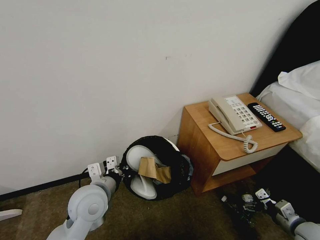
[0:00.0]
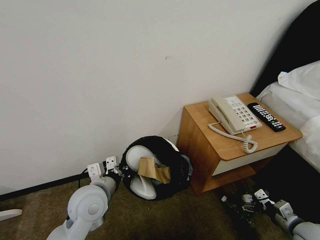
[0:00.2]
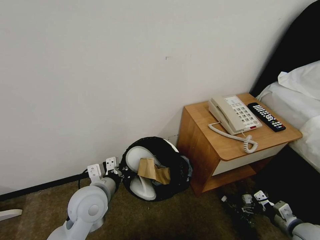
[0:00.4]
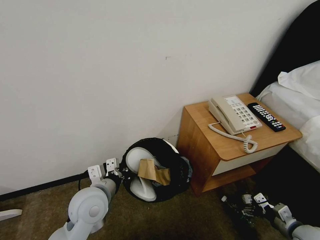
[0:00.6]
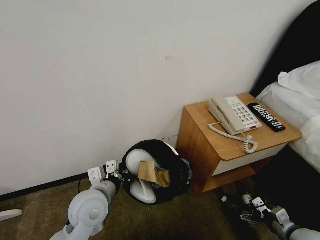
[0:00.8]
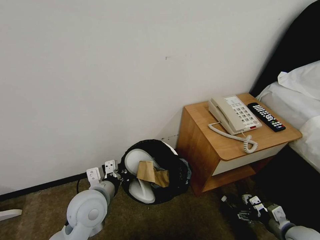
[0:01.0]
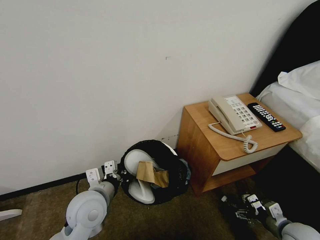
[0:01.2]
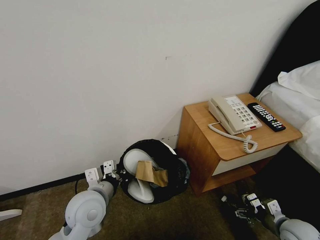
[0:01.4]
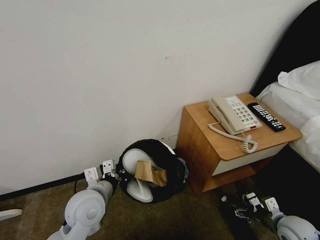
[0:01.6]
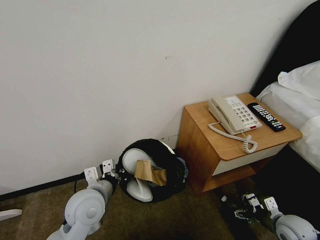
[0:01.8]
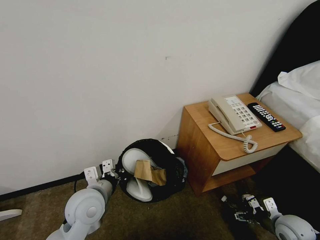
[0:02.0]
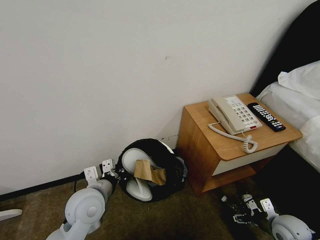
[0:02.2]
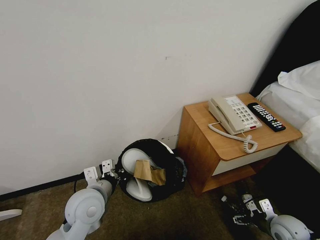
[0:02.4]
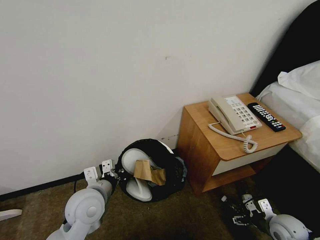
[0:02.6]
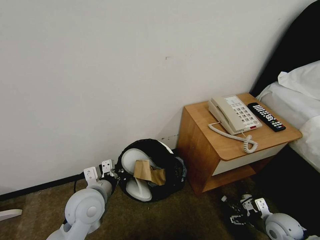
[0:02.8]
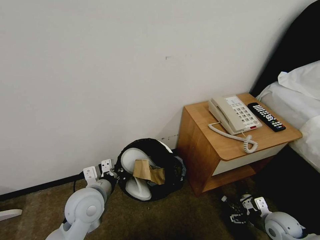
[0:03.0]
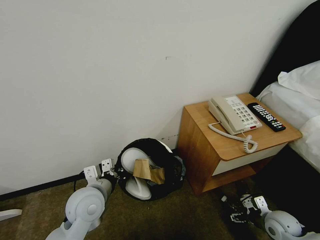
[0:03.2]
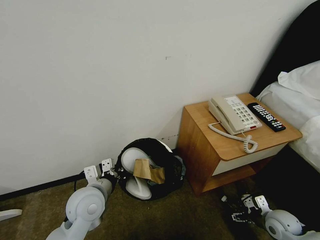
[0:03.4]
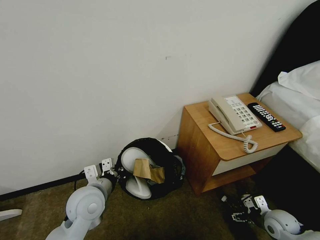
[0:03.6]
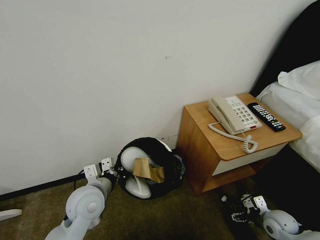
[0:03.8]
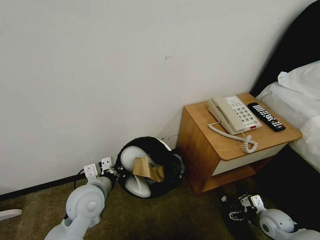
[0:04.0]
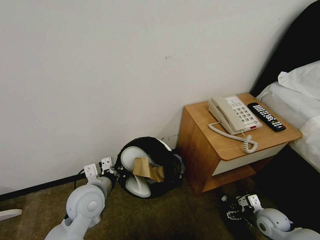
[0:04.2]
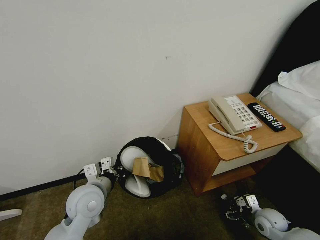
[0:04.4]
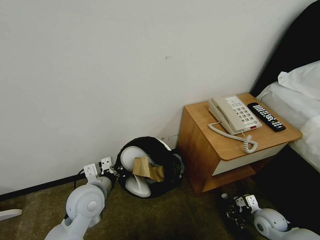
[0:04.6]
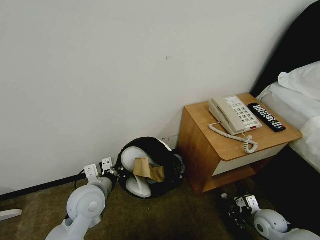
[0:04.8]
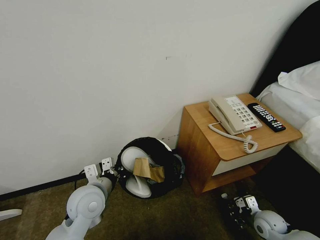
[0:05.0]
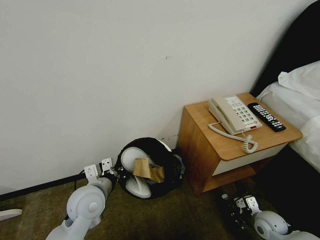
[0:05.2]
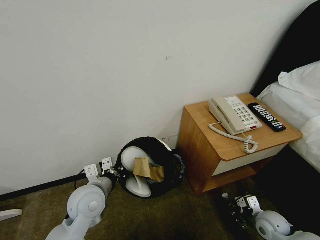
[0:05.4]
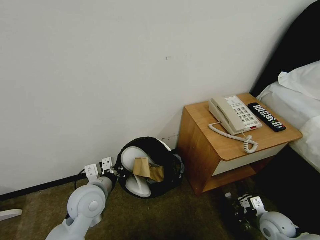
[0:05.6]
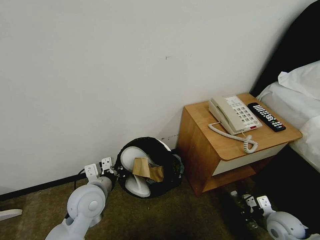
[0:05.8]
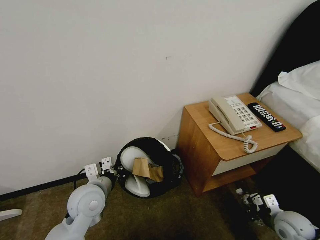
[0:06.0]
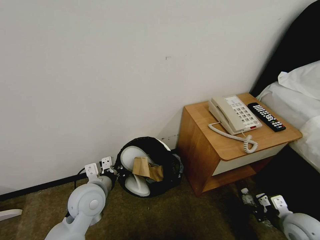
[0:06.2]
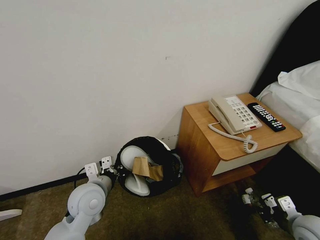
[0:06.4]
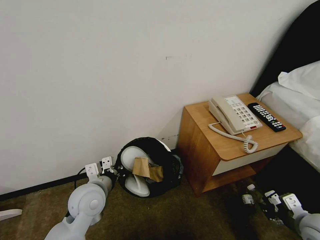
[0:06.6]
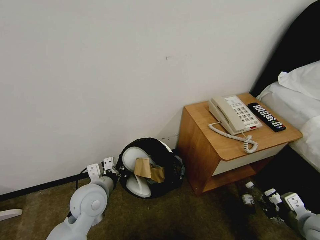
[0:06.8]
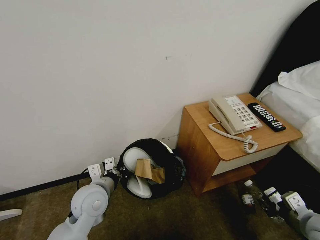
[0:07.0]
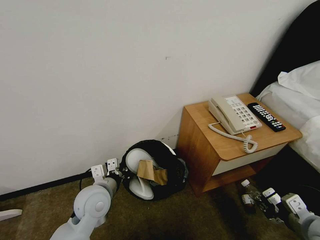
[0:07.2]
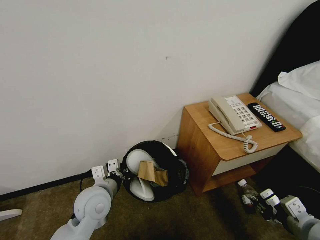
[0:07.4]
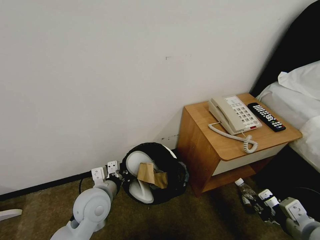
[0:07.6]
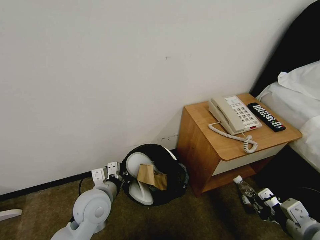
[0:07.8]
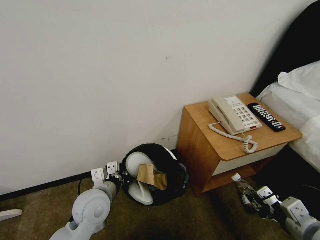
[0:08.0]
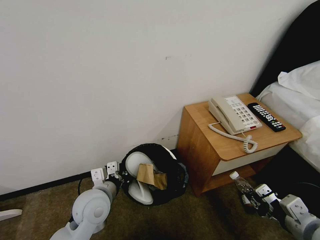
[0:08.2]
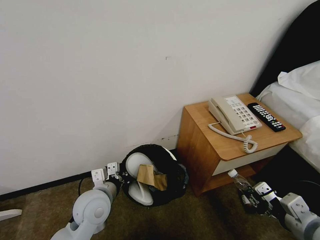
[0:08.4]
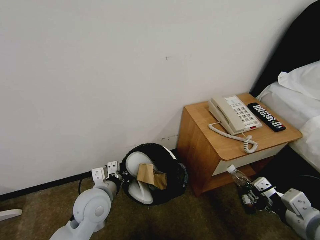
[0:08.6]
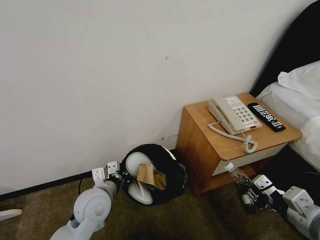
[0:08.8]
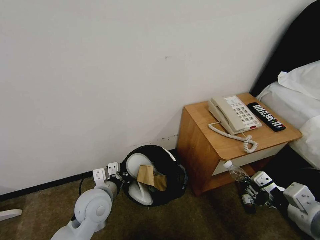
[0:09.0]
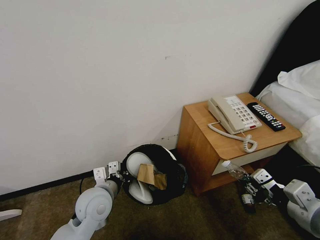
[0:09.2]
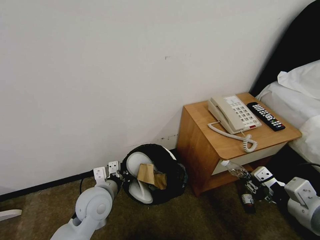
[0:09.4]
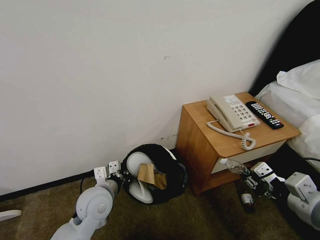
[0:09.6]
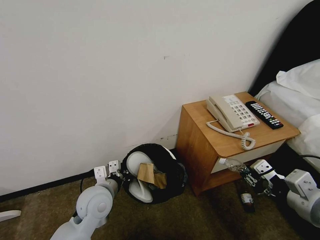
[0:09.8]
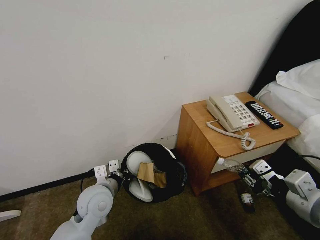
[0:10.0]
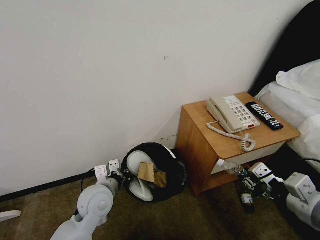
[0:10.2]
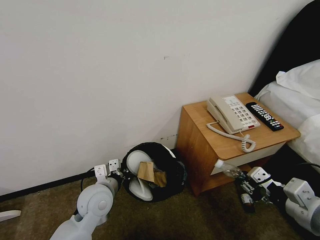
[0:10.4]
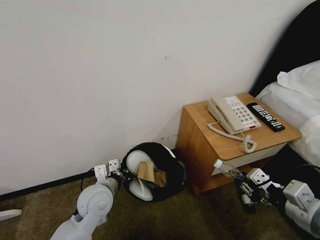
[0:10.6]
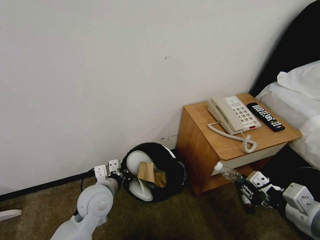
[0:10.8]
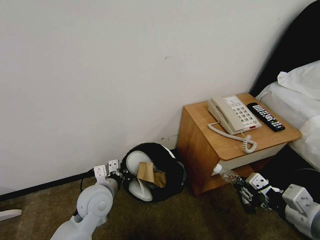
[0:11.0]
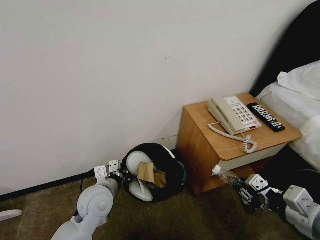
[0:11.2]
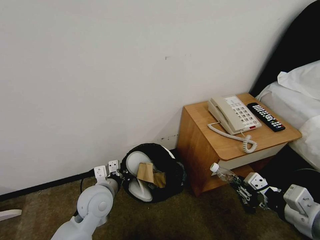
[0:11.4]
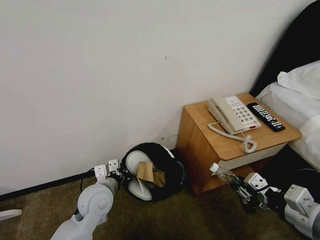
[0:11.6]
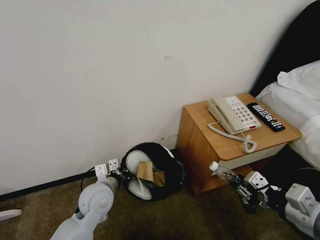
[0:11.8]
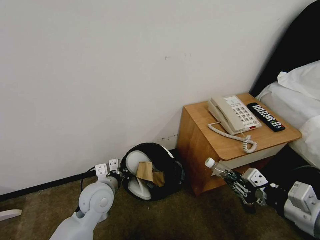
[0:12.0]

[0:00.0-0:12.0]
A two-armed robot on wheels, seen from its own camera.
Task of the whole recording: Pick up the trash bin, then pick up the garbage from the floor and place it into the trash bin.
0:01.6 to 0:03.0: The grippers stay close to where they were, moving slightly.
0:03.0 to 0:04.4: The grippers stay close to where they were, moving slightly.
0:04.4 to 0:06.0: The right gripper moves upward, roughly 5 cm, and closes up.
0:06.0 to 0:07.6: The right gripper travels upward and backward by roughly 15 cm.
0:07.6 to 0:09.0: The right gripper goes about 10 cm upward.
0:09.0 to 0:12.0: The grippers make only small movements.

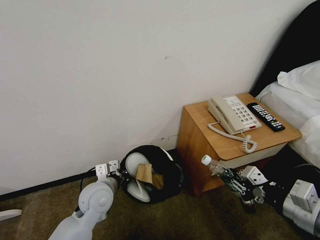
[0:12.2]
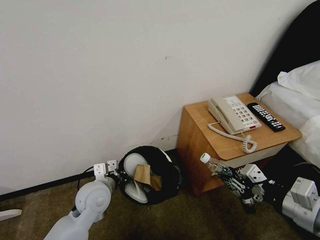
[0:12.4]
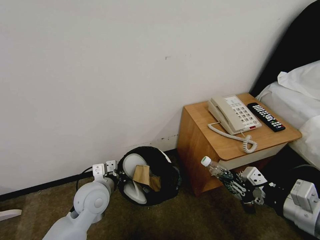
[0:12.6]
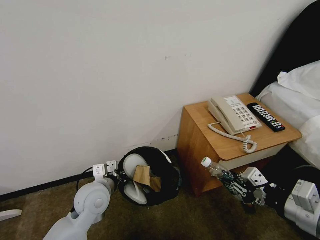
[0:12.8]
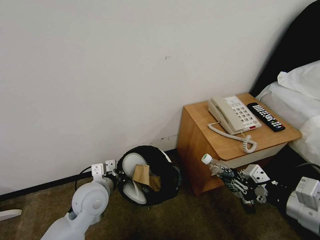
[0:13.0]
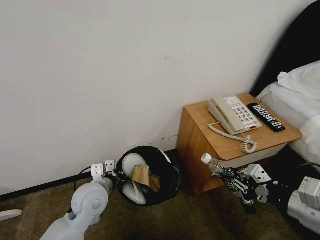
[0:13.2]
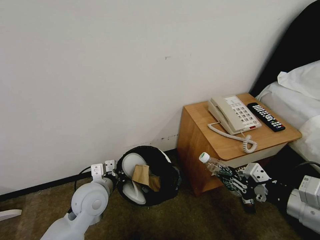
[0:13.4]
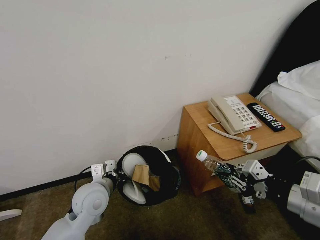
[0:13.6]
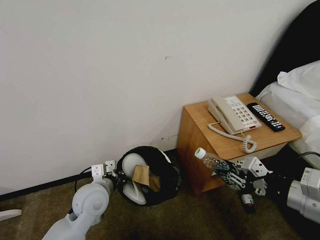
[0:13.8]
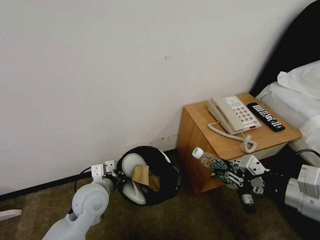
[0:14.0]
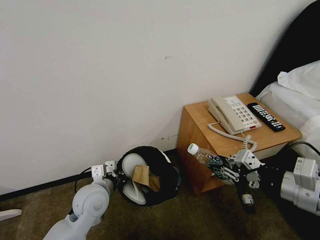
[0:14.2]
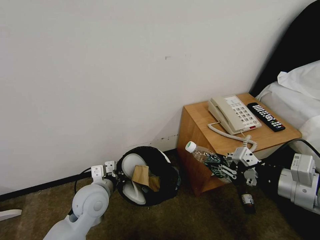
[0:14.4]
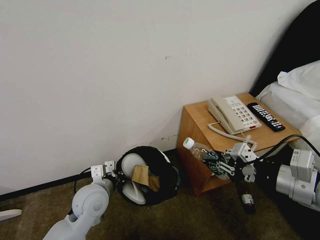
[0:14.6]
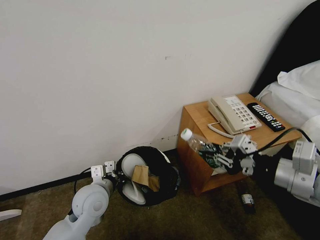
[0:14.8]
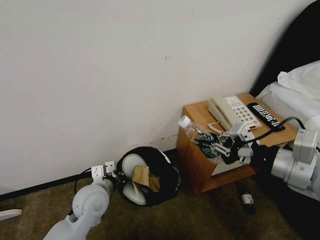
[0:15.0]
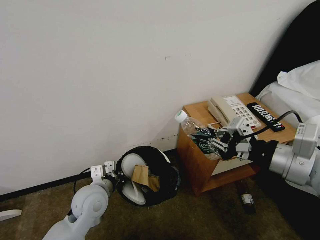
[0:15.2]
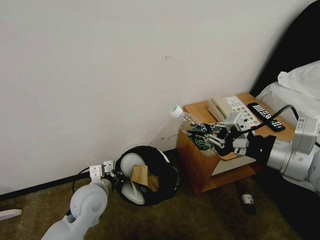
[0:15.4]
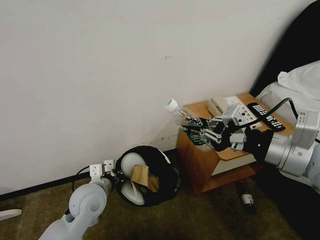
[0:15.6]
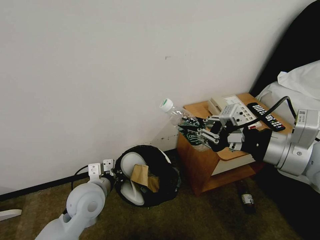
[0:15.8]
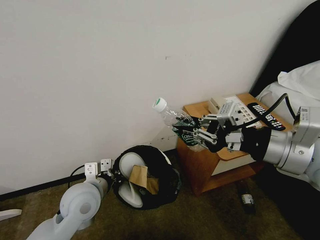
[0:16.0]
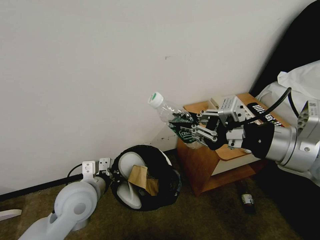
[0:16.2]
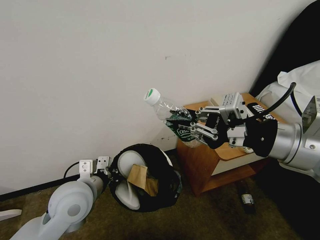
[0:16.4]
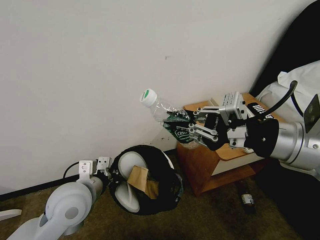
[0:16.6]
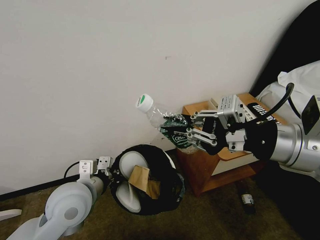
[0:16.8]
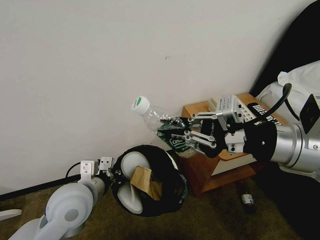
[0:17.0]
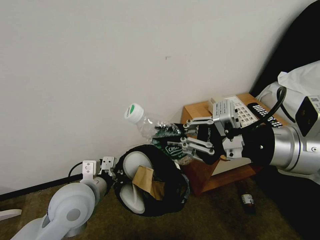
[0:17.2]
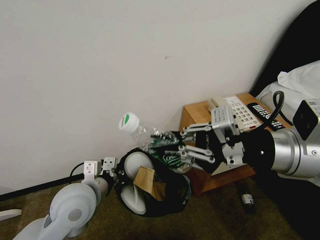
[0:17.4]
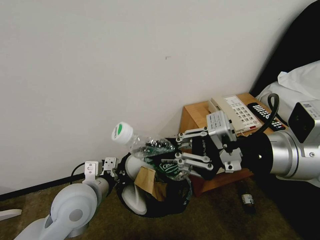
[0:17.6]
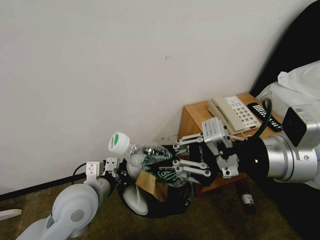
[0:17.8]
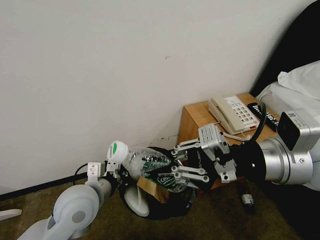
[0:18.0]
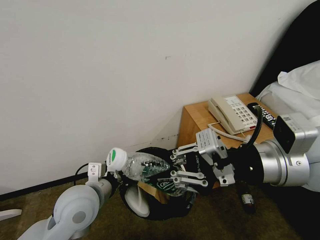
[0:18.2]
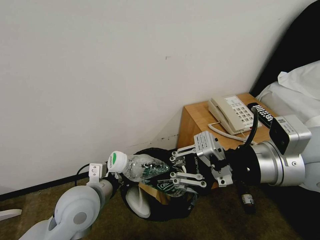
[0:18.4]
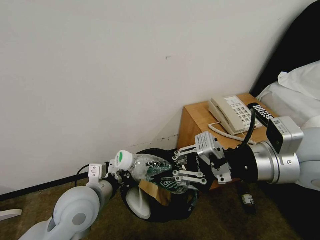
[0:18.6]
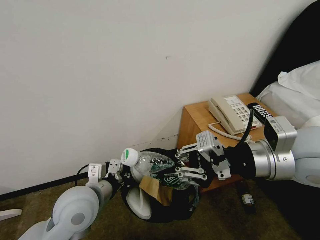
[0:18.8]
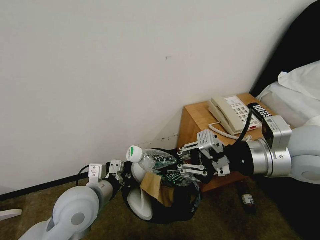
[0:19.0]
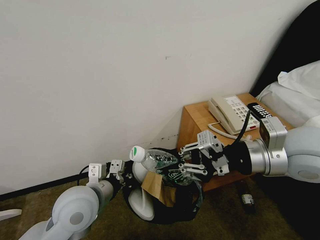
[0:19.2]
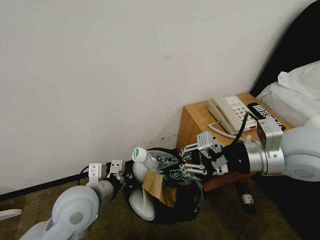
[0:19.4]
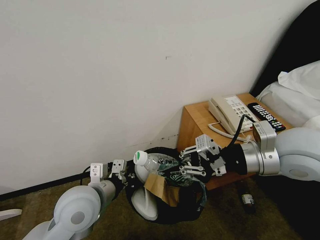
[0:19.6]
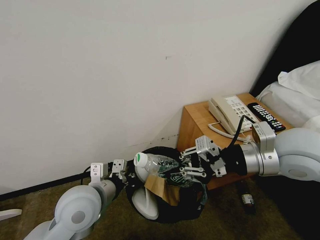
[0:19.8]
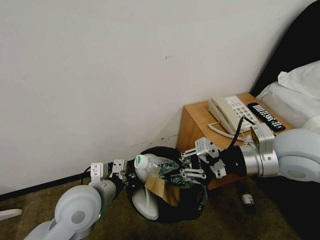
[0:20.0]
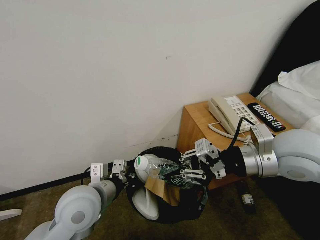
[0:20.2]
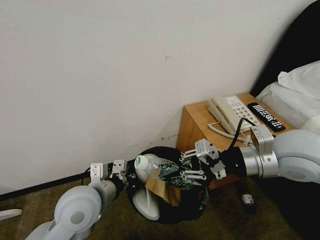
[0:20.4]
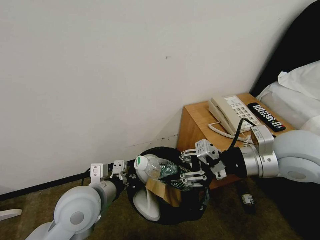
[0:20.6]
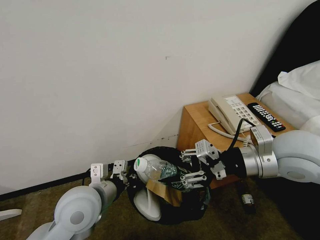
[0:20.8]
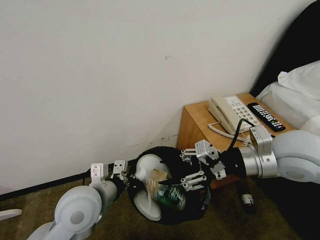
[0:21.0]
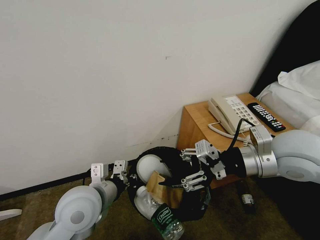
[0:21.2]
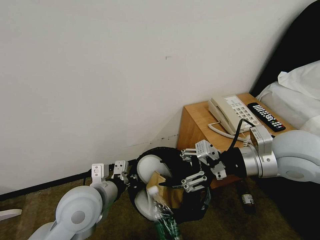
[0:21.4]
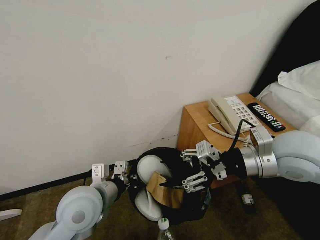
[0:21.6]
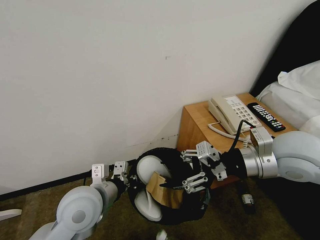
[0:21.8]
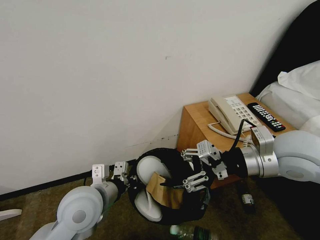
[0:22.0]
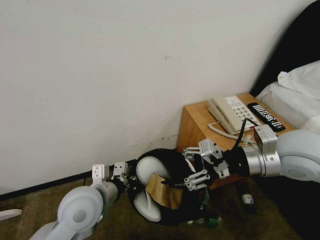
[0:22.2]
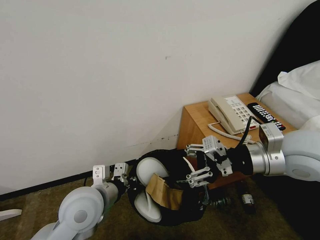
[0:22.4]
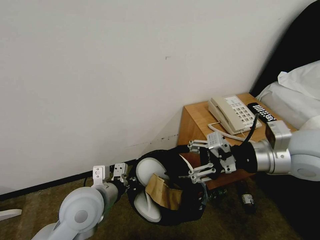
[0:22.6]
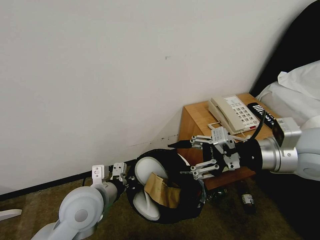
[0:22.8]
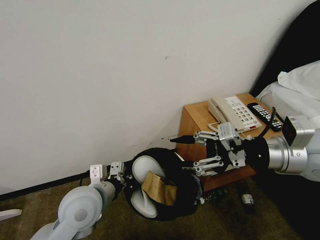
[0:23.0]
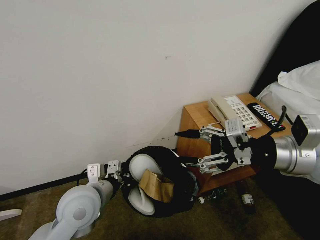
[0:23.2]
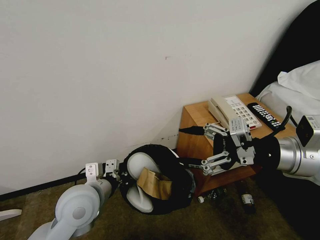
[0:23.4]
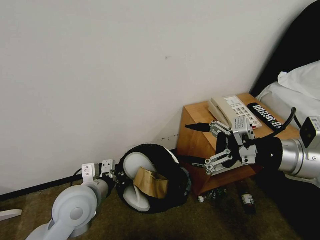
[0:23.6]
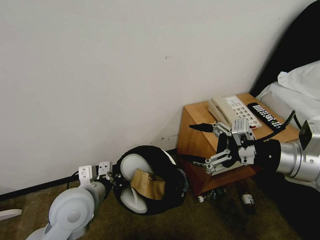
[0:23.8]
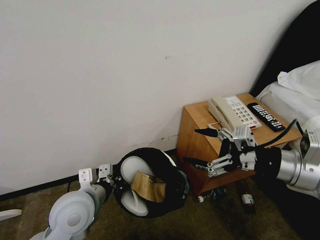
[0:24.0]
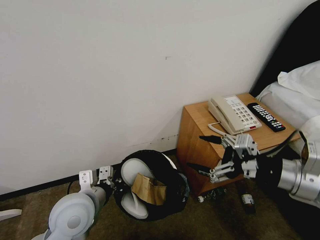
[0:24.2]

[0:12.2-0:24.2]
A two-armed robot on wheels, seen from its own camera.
Task of the whole recording: Pick up the trash bin, then pick up the garbage from the floor and place it into the trash bin.
0:12.2 to 0:13.8: The grippers make only small movements.
0:13.8 to 0:15.2: The right gripper shifts roughly 5 cm upward.
0:15.2 to 0:16.6: Both grippers move upward, some 5 cm.
0:18.2 to 0:19.8: The right gripper goes approximately 5 cm downward.
0:19.8 to 0:21.2: The right gripper opens its fingers.
0:21.2 to 0:22.6: The grippers stay close to where they were, moving slightly.
0:22.6 to 0:24.2: The right gripper goes some 5 cm backward, and opens.
